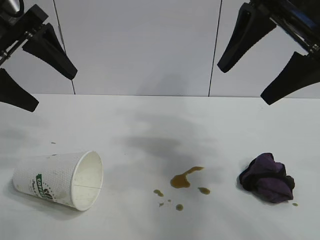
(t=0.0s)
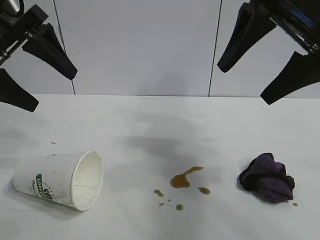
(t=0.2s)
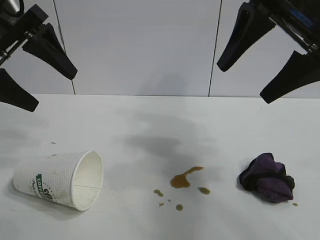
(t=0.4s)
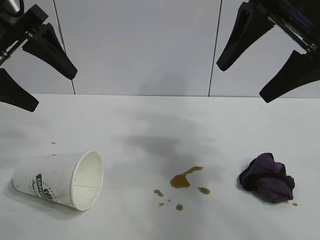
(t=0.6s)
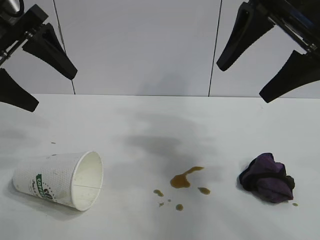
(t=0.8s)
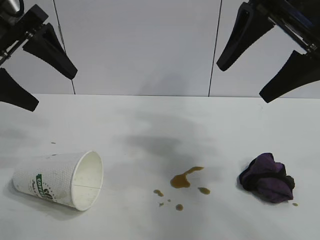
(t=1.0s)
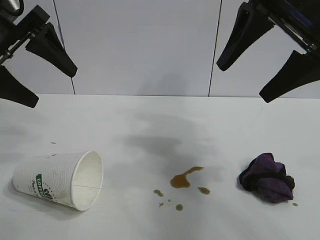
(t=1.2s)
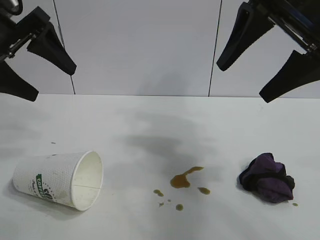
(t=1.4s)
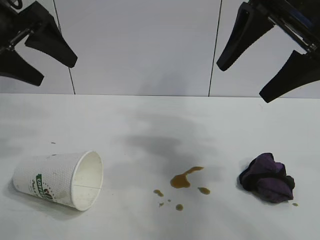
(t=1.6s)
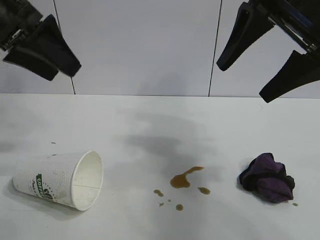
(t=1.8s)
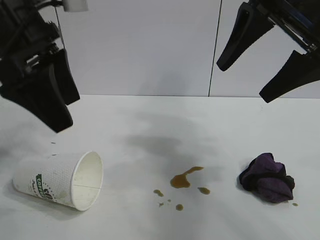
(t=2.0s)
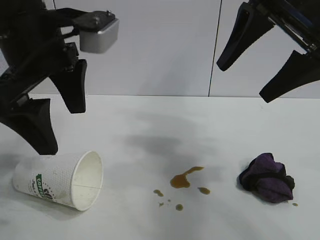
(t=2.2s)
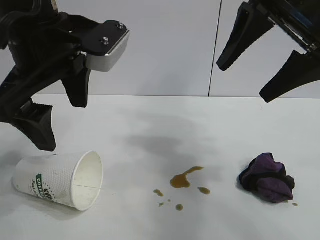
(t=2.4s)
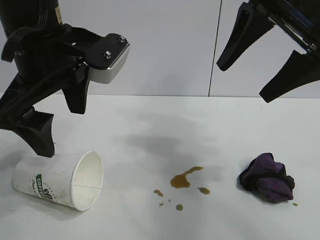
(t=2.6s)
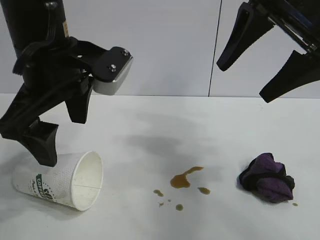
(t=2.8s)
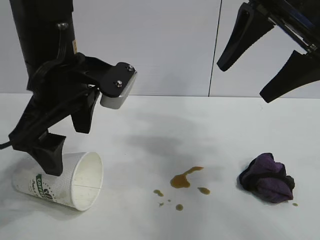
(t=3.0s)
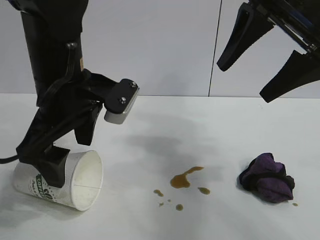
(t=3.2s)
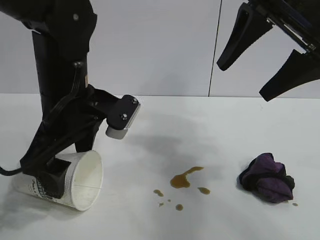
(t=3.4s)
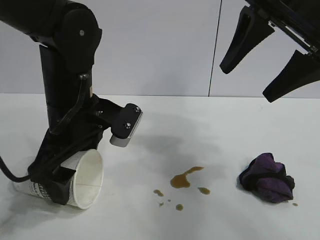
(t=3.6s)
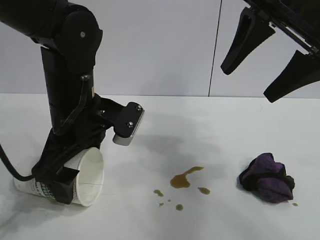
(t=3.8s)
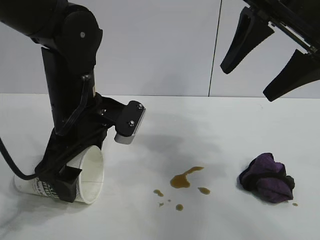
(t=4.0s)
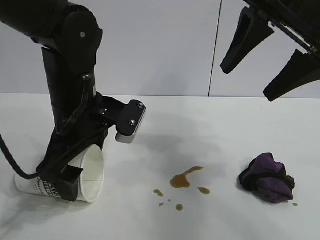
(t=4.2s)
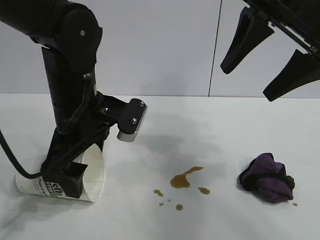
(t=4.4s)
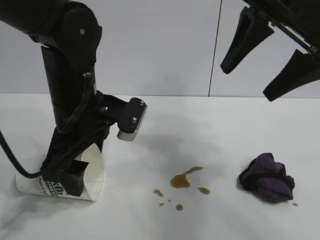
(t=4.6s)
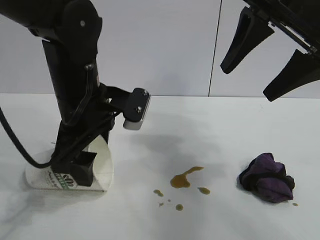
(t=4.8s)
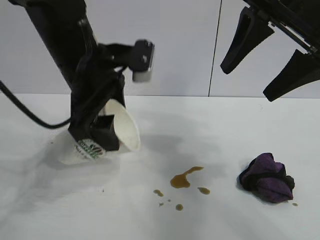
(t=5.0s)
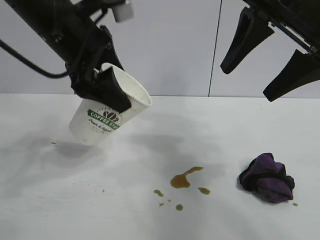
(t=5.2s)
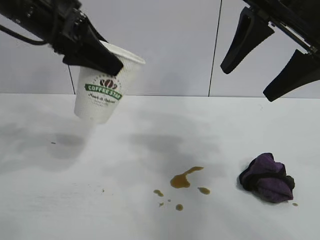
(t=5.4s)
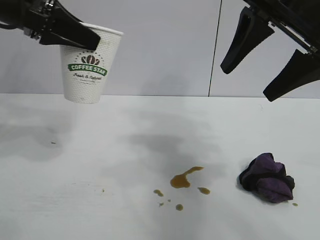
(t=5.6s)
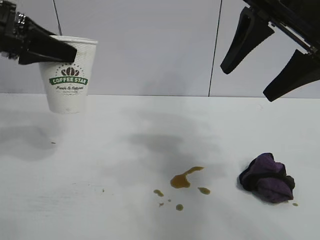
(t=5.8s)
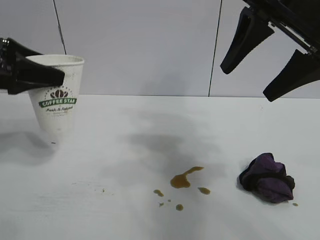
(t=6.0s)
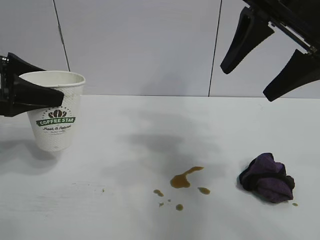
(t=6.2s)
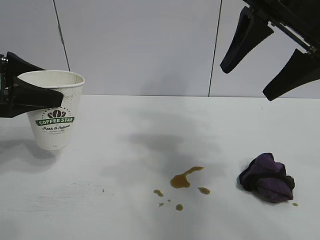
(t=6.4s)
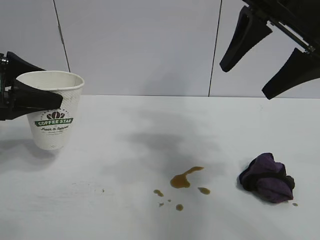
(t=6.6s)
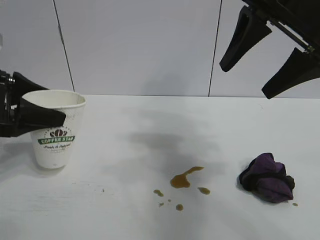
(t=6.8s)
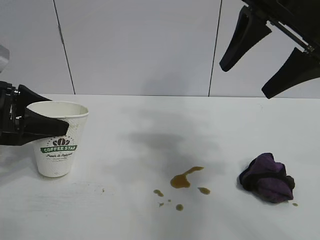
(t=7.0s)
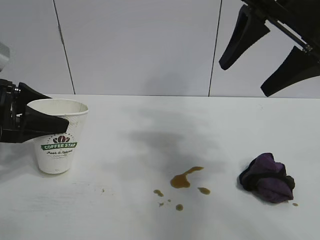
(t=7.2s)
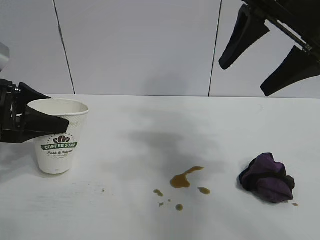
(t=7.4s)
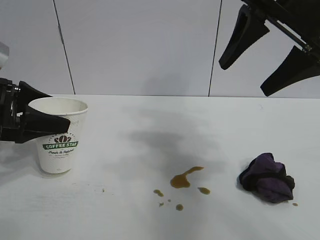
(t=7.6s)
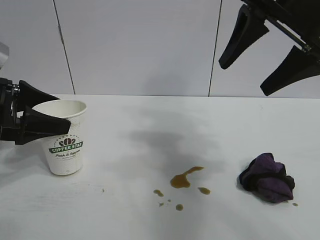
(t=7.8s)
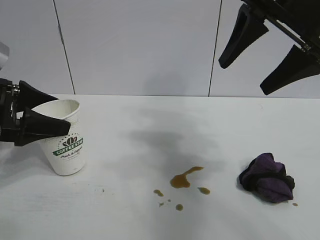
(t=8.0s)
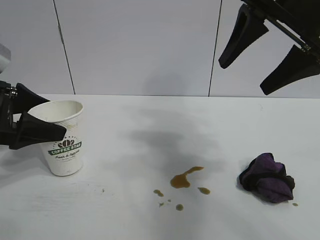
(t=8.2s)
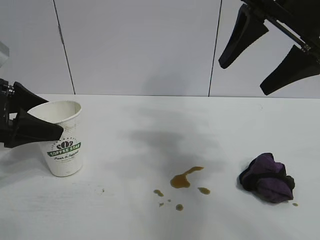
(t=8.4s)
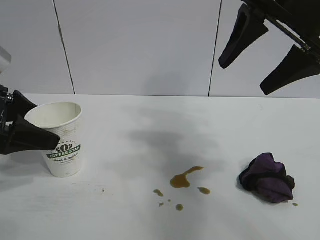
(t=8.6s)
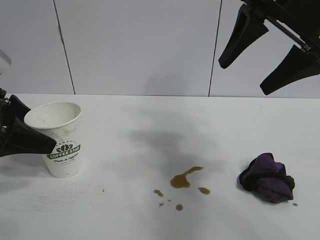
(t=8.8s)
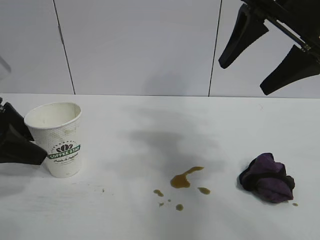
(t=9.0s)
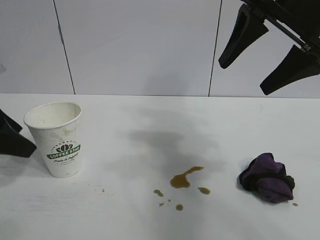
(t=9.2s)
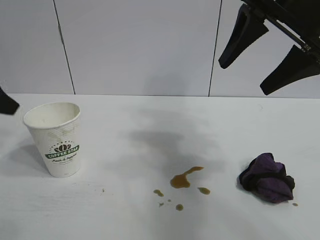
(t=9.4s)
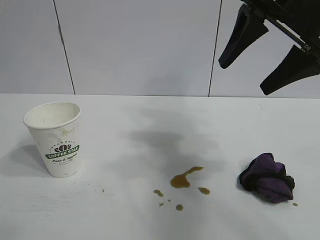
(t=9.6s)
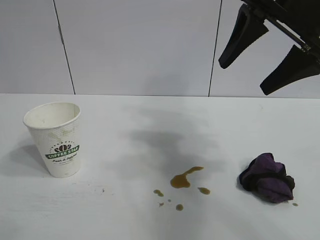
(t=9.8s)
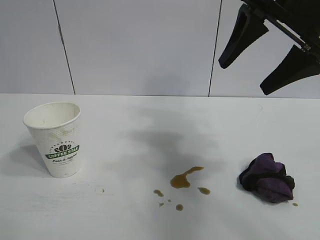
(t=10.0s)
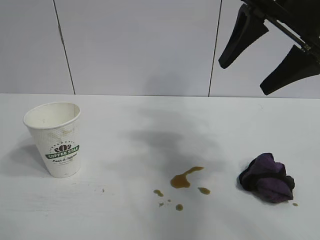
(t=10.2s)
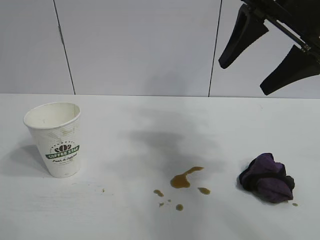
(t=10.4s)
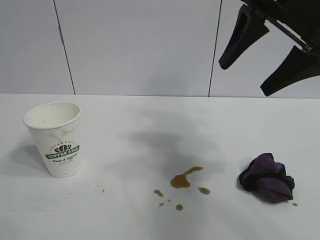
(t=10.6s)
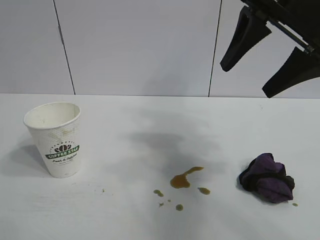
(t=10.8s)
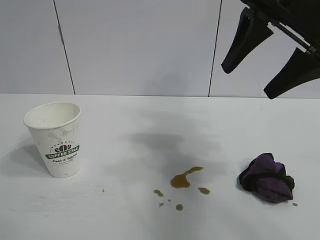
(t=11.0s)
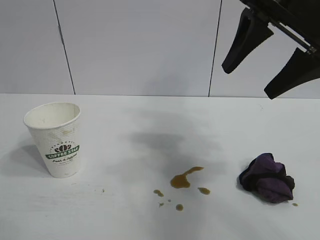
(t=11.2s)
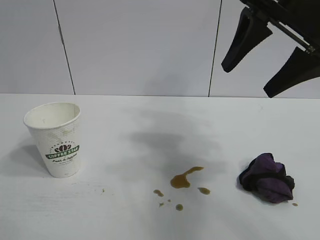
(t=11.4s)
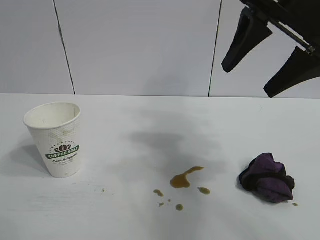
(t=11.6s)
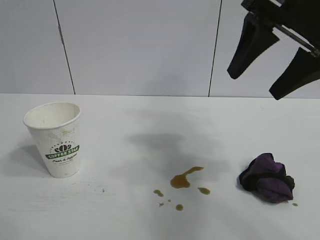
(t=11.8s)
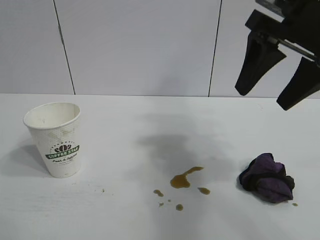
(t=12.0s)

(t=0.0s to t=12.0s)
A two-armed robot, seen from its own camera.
Task of the whole recording: the left gripper pick up the fallen cup and place it upright, the right gripper grasp the black rag and wipe the stain on the table, the right gripper put the black rag back in its original position.
Step, t=1.0s - t=4.6s: Grasp the paper cup with left gripper.
Step, t=4.8s - t=8.4s: Stand the paper cup upright with left gripper.

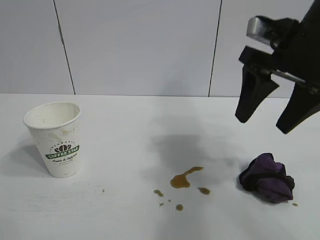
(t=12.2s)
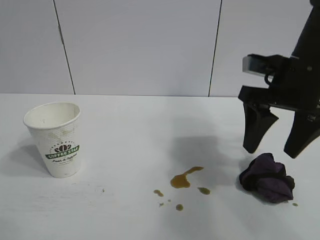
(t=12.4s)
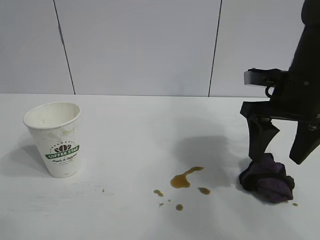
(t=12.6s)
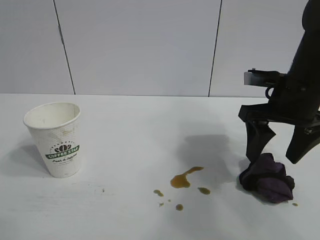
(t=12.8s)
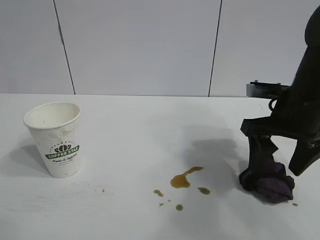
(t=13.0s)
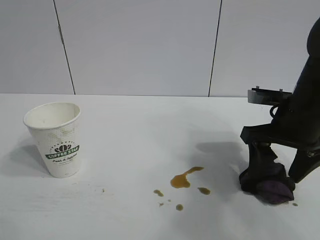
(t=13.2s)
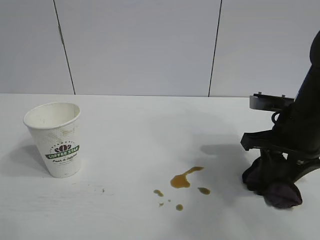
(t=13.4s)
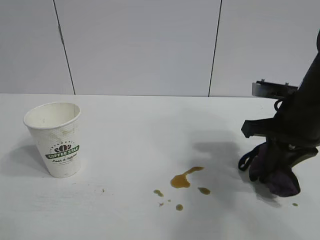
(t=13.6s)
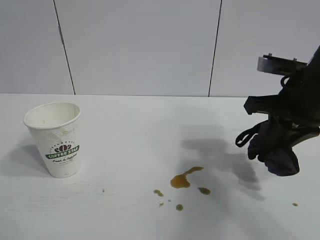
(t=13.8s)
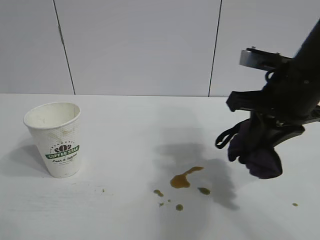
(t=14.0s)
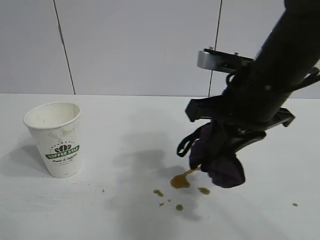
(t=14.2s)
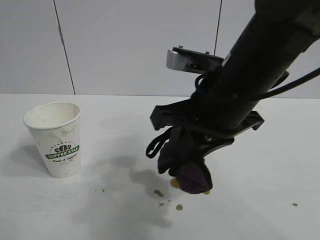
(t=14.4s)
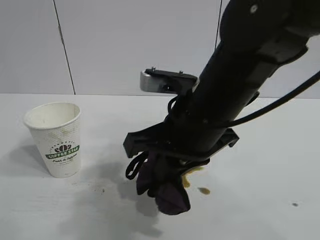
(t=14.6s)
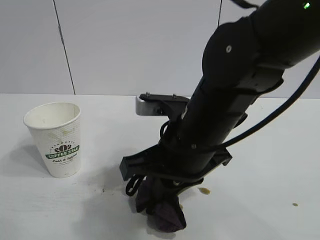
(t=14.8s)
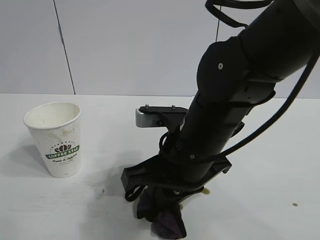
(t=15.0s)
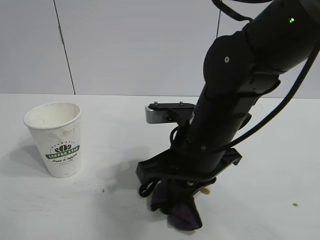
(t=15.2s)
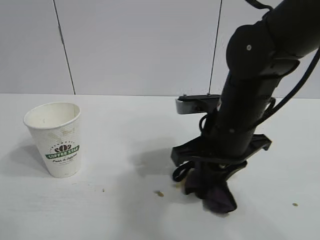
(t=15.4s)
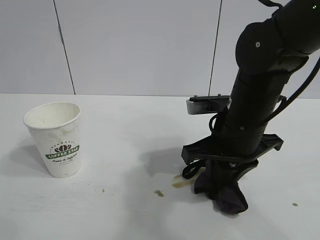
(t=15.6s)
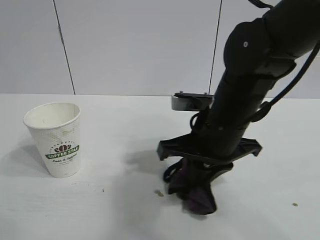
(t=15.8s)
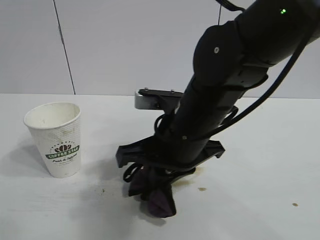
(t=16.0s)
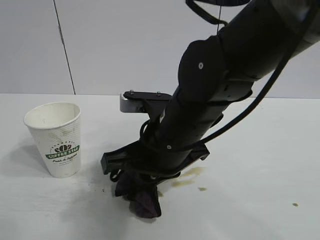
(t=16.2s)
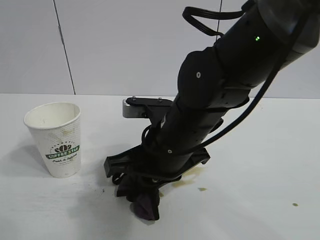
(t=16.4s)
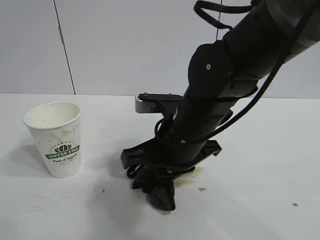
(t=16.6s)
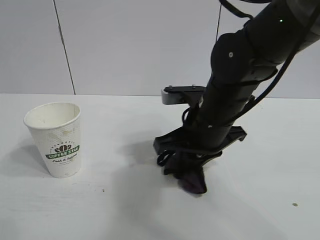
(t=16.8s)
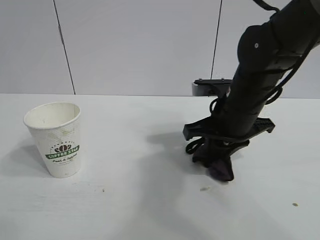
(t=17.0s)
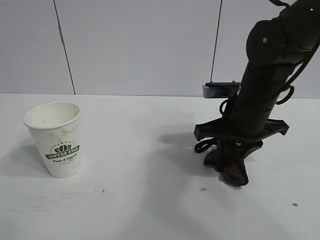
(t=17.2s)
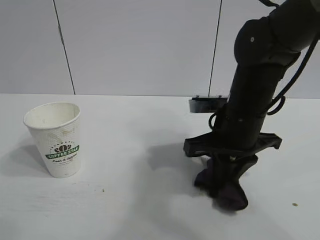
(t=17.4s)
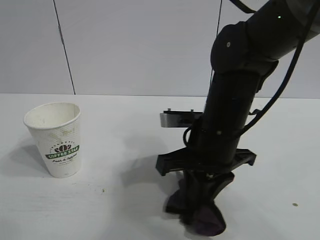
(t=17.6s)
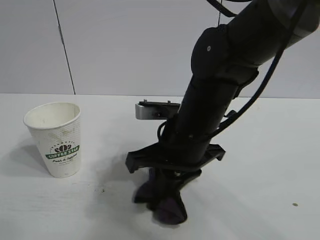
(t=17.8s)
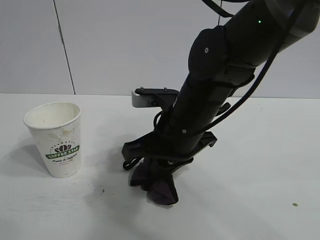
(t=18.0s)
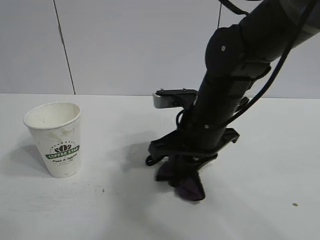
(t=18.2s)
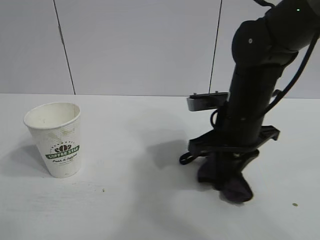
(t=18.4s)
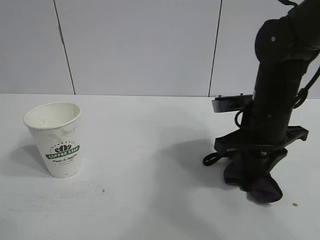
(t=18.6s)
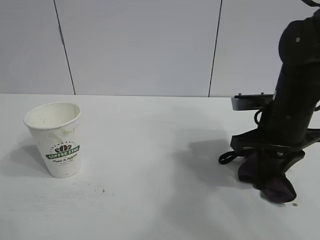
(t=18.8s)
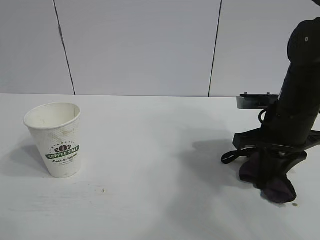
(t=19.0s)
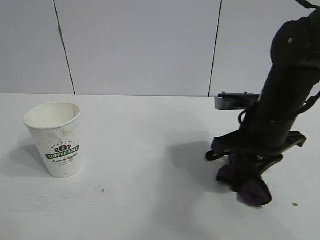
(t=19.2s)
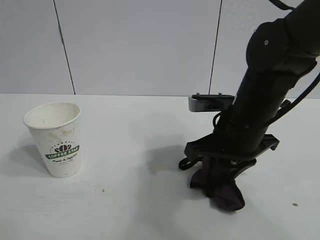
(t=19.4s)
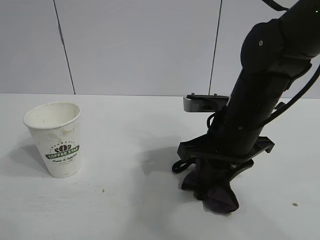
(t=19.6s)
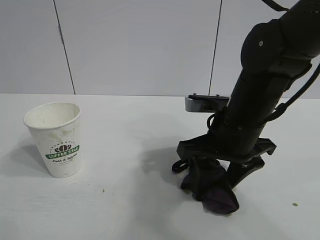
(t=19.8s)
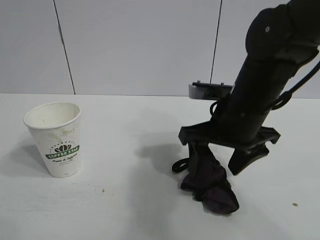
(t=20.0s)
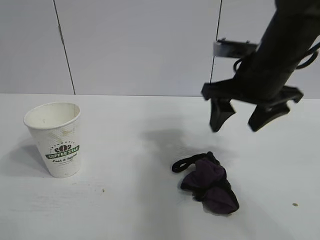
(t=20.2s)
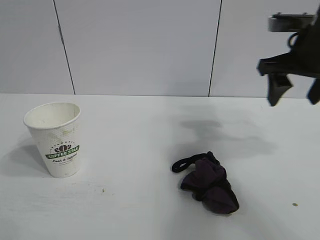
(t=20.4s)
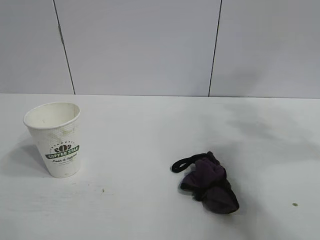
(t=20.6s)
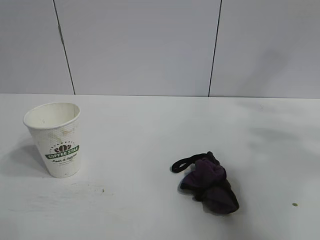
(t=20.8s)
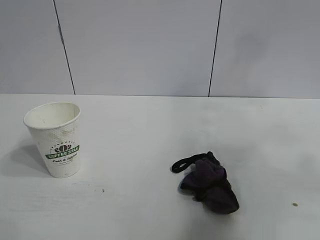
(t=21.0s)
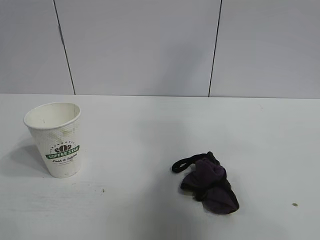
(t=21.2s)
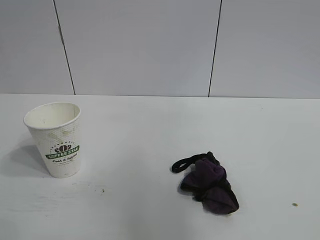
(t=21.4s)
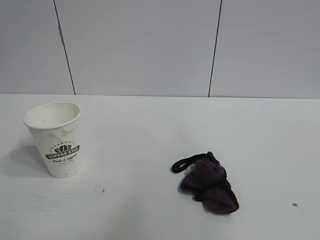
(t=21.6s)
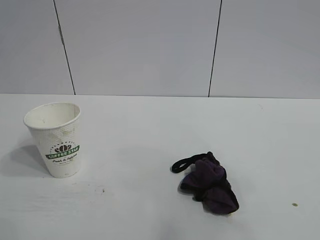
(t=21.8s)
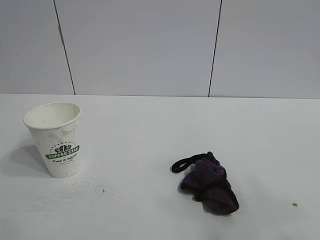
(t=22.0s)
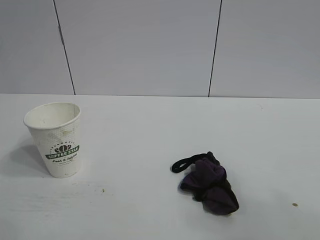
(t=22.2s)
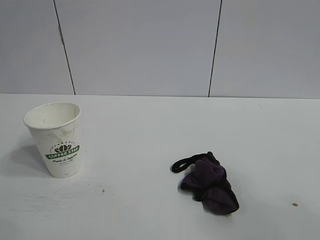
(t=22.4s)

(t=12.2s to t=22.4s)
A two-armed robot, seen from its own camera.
Task of the whole recording: the left gripper pick up the fallen cup and place it upright, the right gripper grasp the black rag and wipe the stain on the table, the right gripper put the black rag back in its original position.
Step, t=13.6s - t=19.4s: Wipe the stains off the table with the rag with right gripper.
Step, t=19.6s - t=19.8s: Place the rag on the table with right gripper.
